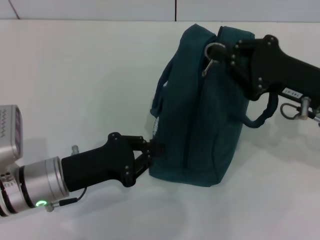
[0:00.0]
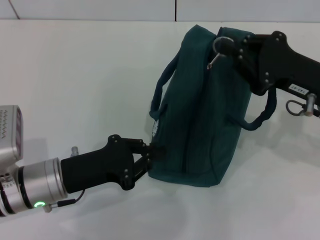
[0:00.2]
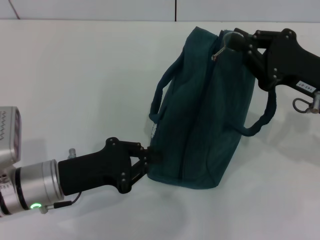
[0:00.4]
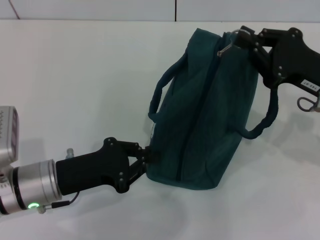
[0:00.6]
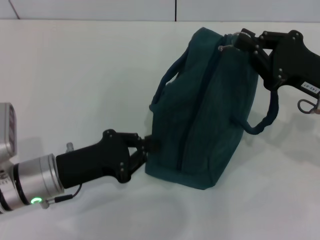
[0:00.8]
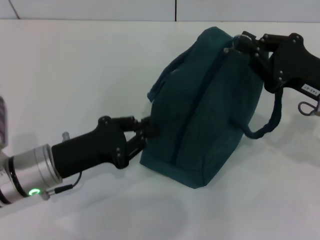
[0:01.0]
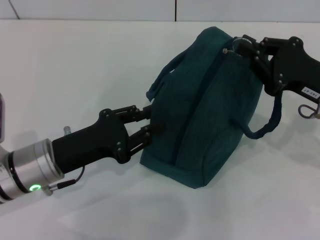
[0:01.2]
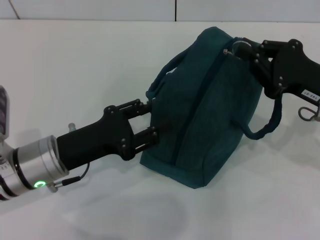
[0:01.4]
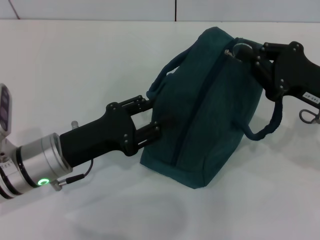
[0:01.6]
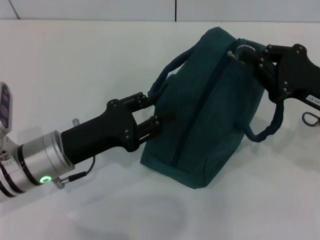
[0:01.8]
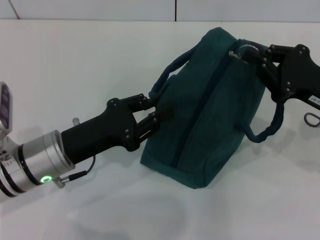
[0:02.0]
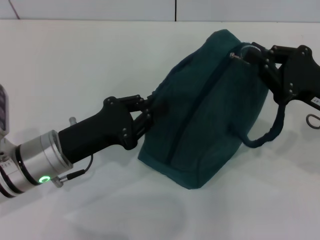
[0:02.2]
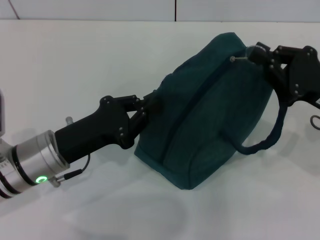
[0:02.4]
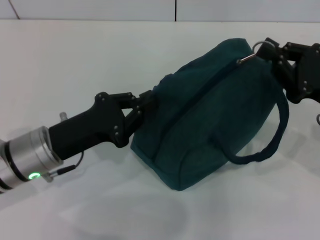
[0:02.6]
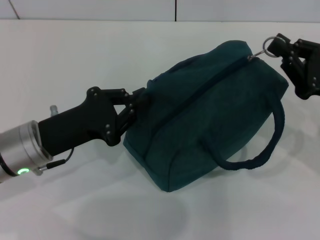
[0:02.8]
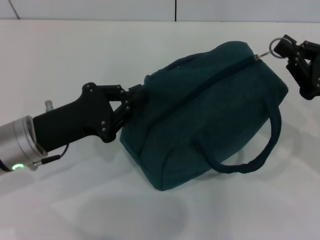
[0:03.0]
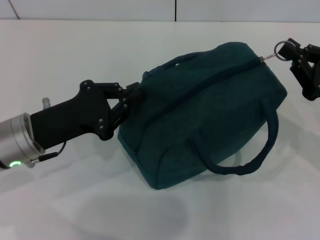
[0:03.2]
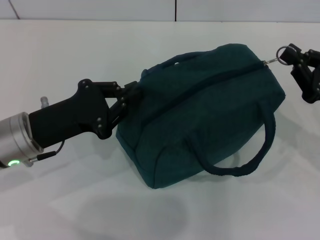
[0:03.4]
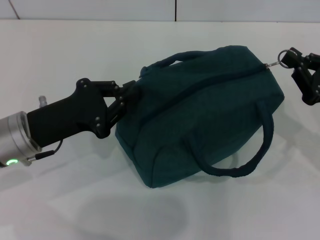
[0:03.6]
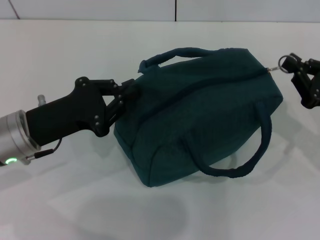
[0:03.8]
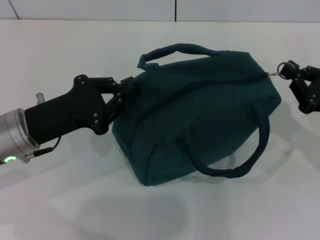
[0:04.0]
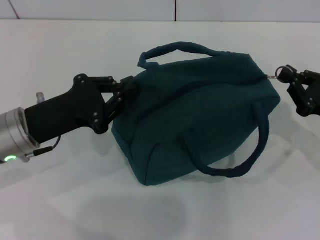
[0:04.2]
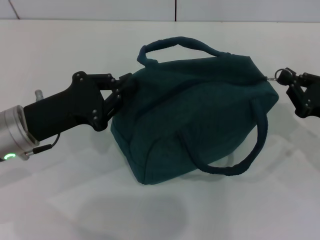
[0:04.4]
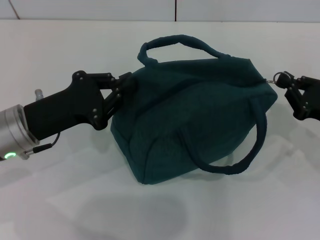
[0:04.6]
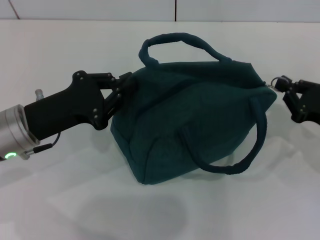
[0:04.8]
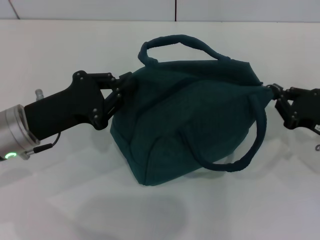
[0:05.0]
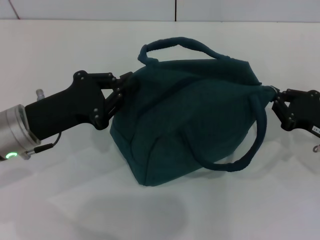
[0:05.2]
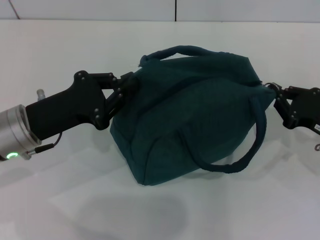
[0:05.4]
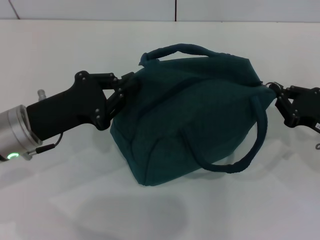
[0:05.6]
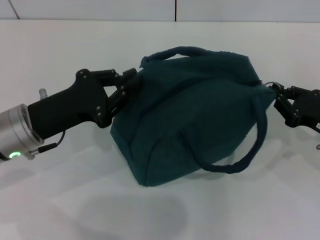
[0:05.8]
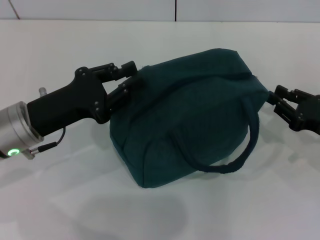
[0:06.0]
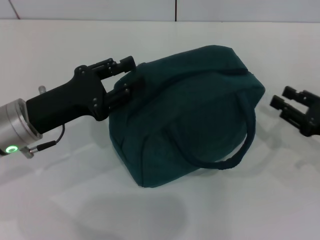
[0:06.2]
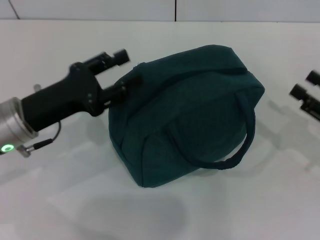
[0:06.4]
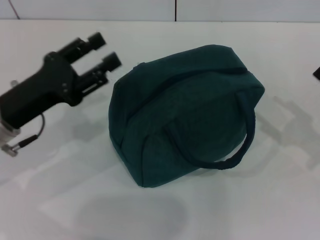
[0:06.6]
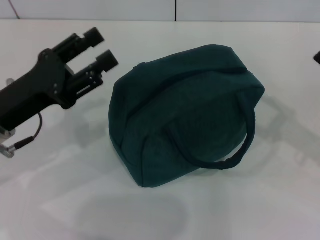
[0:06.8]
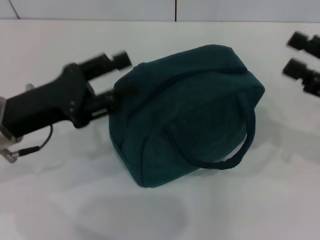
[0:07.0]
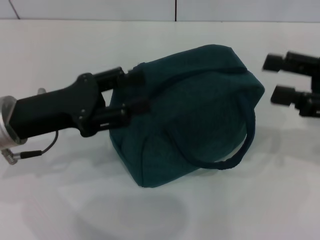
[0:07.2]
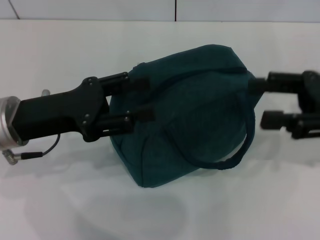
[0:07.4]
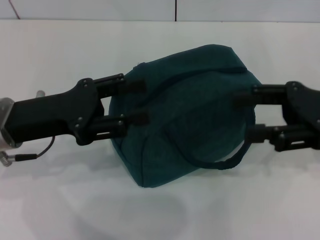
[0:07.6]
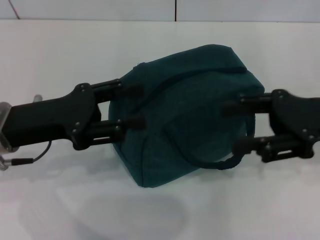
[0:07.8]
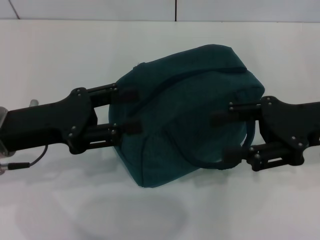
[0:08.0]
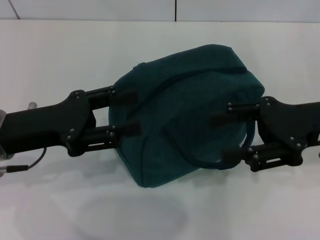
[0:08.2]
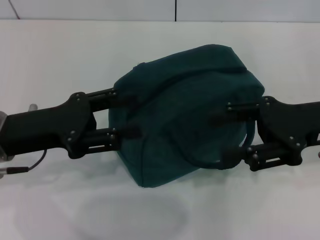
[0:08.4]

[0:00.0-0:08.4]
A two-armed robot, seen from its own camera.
Step, 0:00.0 to 0:05.8: Zip up the lunch bag with your right hand.
Step, 0:06.0 to 0:06.2: Hold the lunch bag with your left hand.
0:00.0 to 0:01.4: The left gripper opens.
0:01.4 to 0:02.8: The left gripper closes.
0:02.8 to 0:04.2: The right gripper shifts by roughly 5 cm.
0:04.2 to 0:05.6: There are only small adjustments of the grippers.
0:05.6 to 0:07.0: The right gripper shifts some 10 cm upward, and opens its fingers. Meanwhile the left gripper opens up.
0:07.0 to 0:08.4: The right gripper is displaced to the left by about 5 cm.
